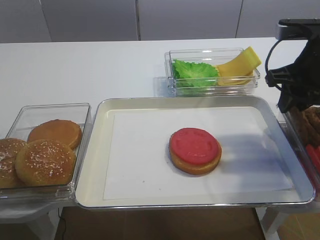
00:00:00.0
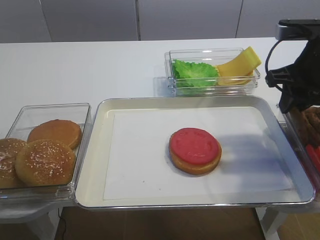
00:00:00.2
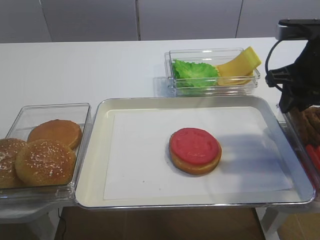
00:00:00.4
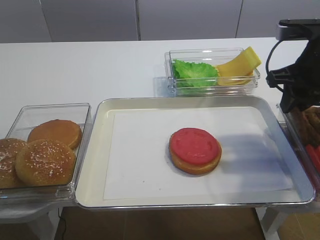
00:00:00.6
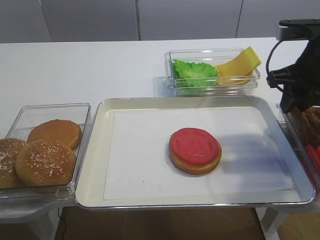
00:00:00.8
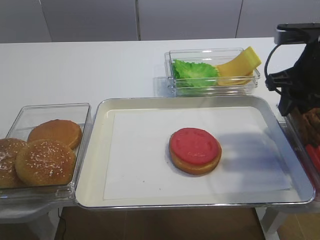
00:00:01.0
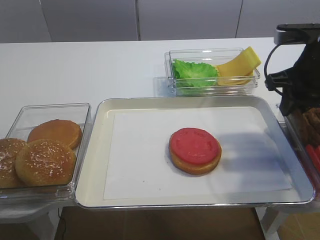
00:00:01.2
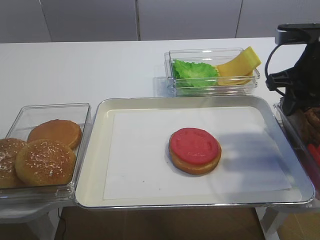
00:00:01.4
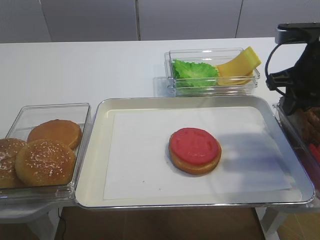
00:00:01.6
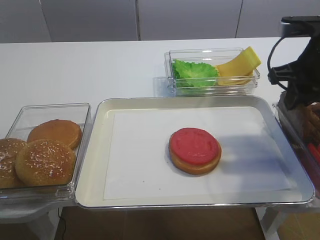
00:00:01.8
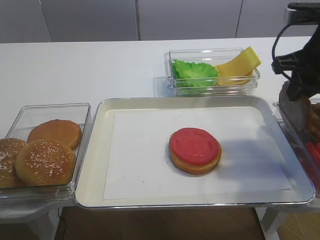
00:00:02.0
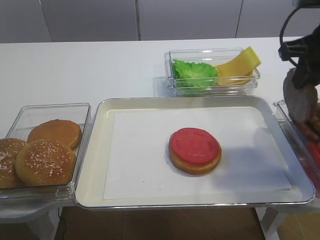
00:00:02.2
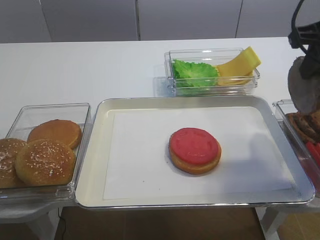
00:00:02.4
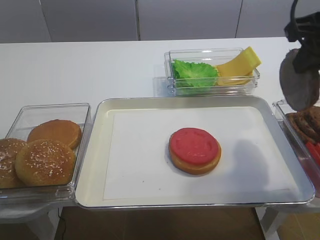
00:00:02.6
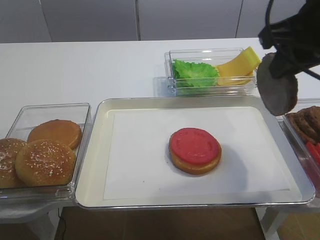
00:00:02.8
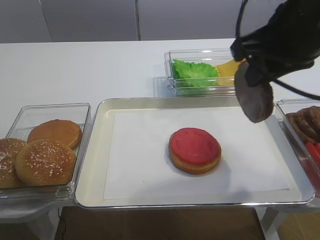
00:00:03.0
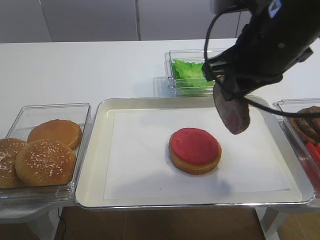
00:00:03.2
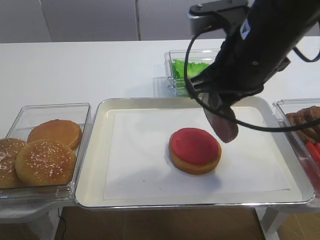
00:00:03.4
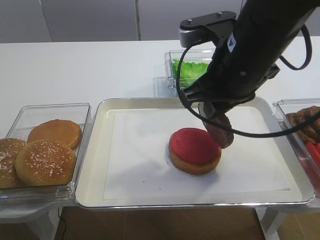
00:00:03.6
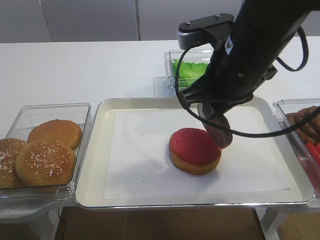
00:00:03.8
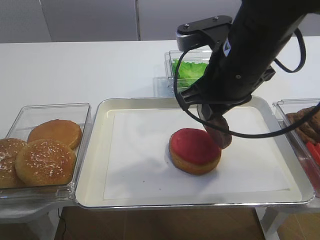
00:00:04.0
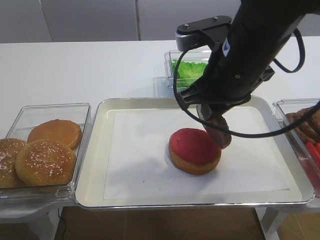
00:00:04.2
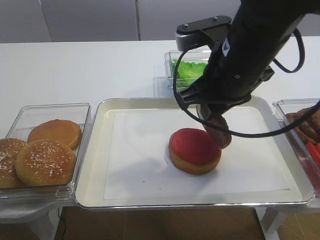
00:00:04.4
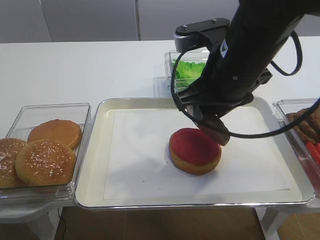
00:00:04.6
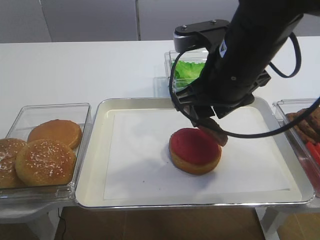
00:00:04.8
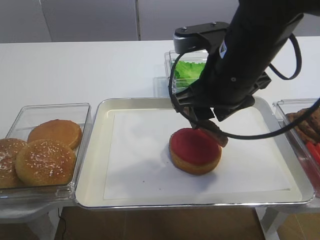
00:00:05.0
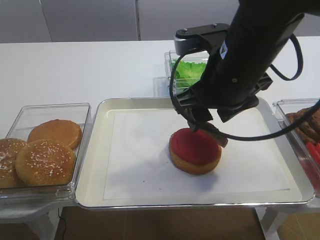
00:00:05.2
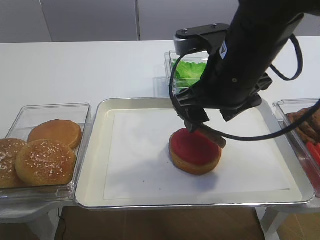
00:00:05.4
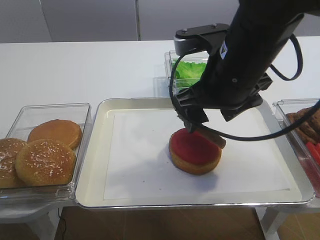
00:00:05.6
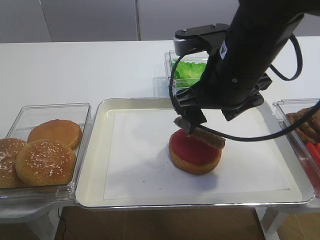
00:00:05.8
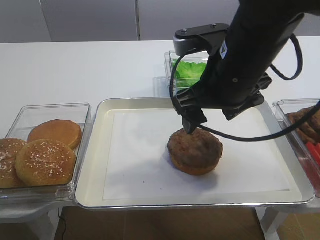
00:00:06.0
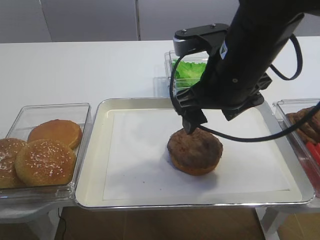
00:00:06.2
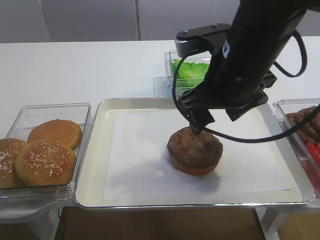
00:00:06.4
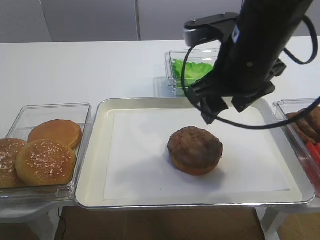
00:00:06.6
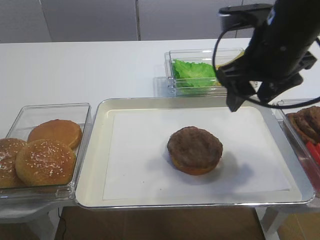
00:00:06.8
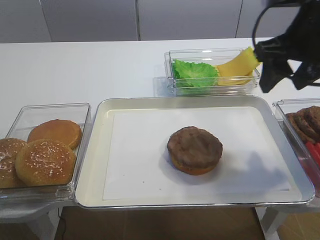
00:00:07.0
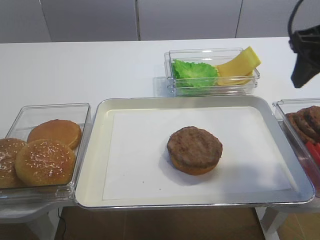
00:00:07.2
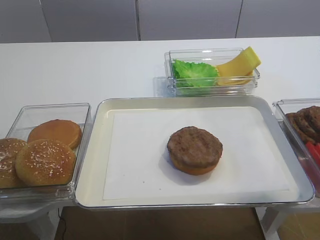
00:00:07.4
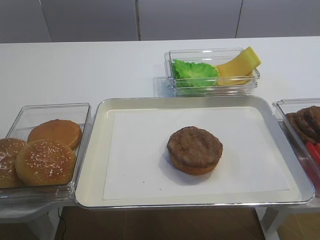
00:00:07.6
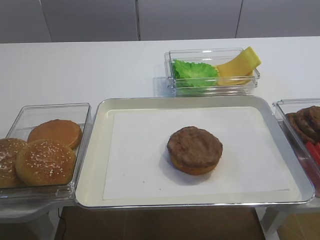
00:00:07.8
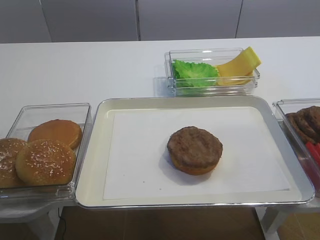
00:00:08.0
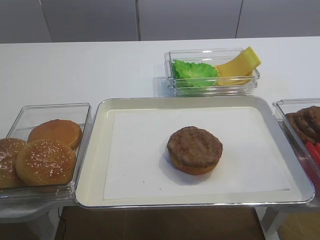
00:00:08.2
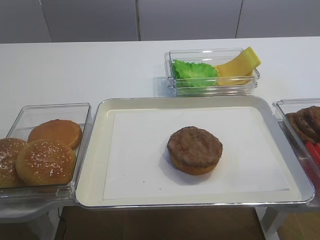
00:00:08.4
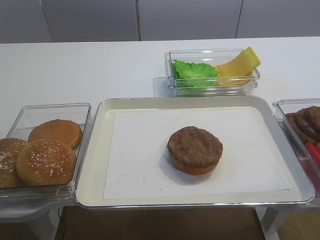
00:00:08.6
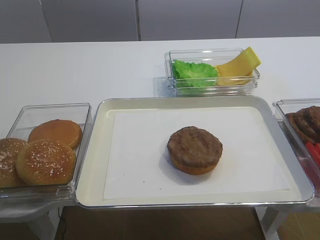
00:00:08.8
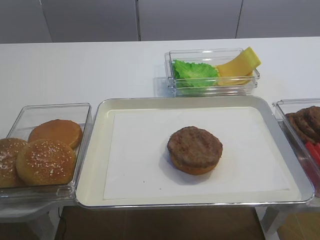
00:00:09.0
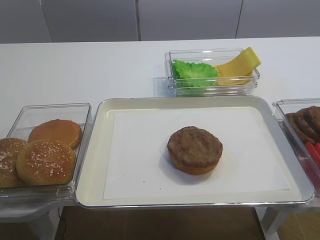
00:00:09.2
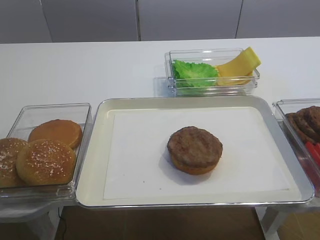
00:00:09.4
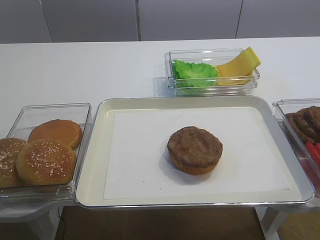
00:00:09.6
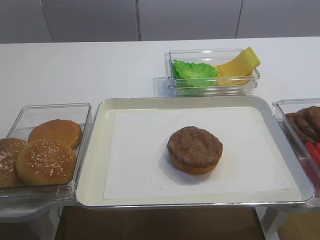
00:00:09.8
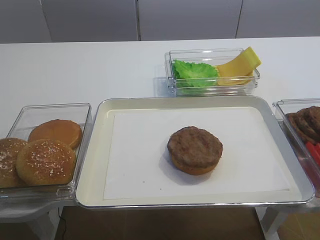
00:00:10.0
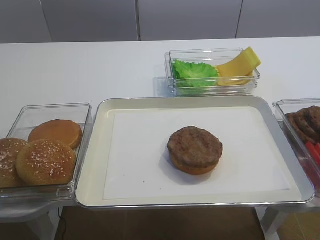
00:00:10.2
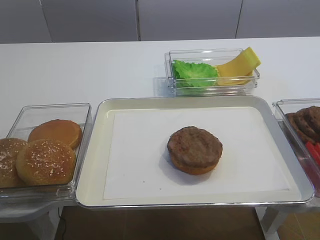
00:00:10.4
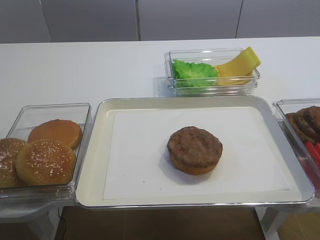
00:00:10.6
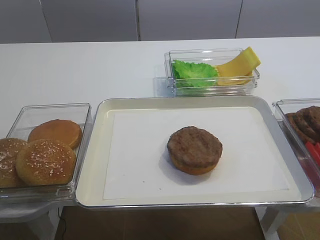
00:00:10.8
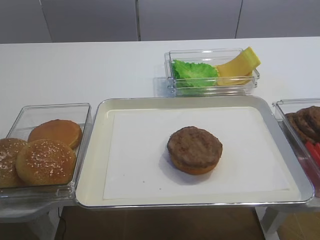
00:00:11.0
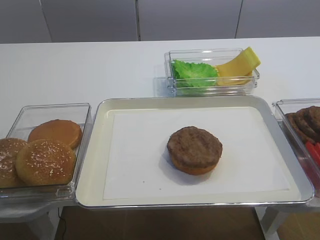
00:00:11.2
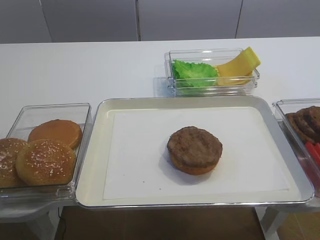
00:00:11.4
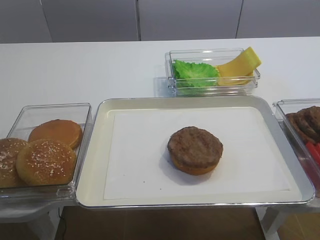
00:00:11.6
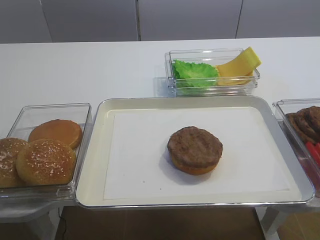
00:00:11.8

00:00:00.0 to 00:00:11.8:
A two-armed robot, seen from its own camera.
Step, 00:00:00.0 to 00:00:02.0: Pick up the cutlet with the right gripper.
Step, 00:00:02.2 to 00:00:06.0: Place the cutlet on the tomato slice with the right gripper.
00:00:00.0 to 00:00:01.4: Both grippers stay about where they are.
00:00:01.4 to 00:00:03.0: The right gripper shifts roughly 15 cm to the left, upward and backward.
00:00:03.0 to 00:00:04.4: The right gripper is displaced to the left and downward by approximately 10 cm.
00:00:04.4 to 00:00:06.0: The right gripper opens up.
00:00:06.0 to 00:00:07.4: The right gripper is displaced to the right and upward by roughly 15 cm, and closes its fingers.
00:00:07.4 to 00:00:08.8: The right gripper moves backward, approximately 25 cm.

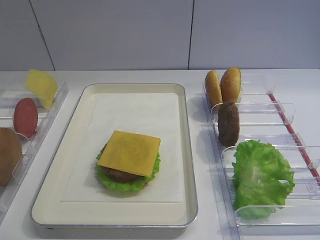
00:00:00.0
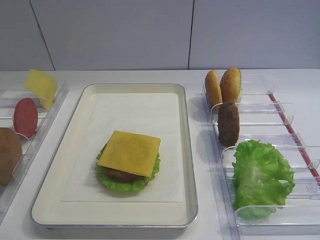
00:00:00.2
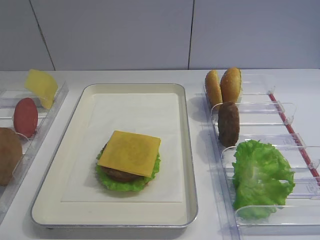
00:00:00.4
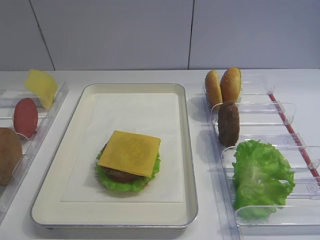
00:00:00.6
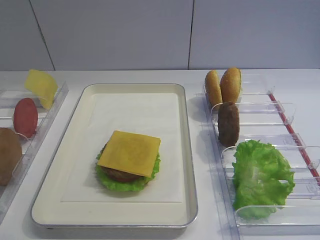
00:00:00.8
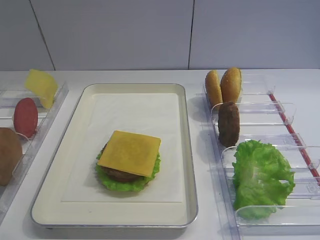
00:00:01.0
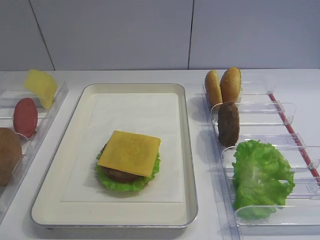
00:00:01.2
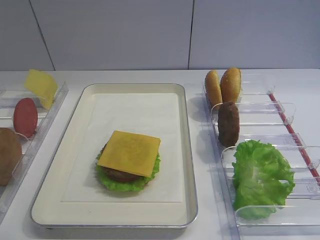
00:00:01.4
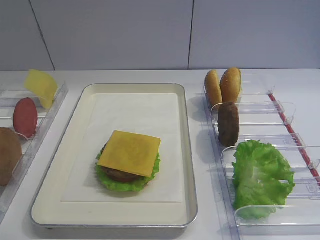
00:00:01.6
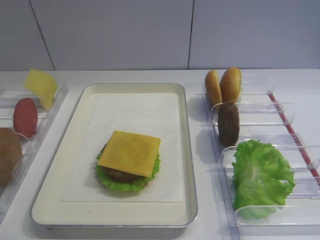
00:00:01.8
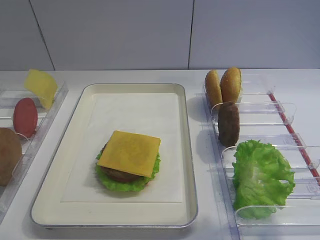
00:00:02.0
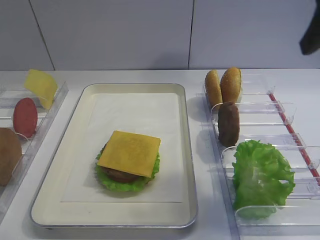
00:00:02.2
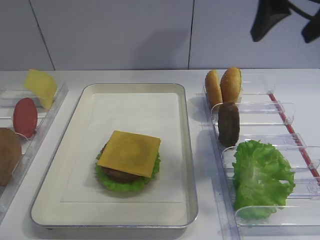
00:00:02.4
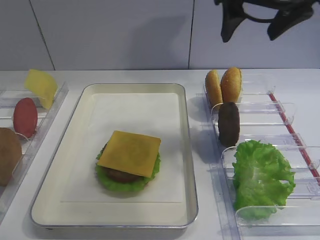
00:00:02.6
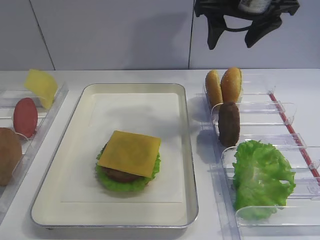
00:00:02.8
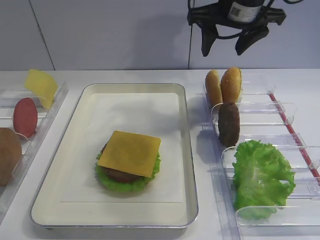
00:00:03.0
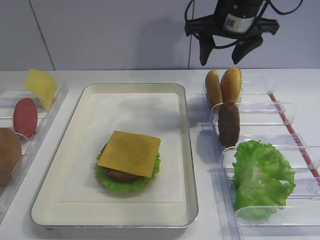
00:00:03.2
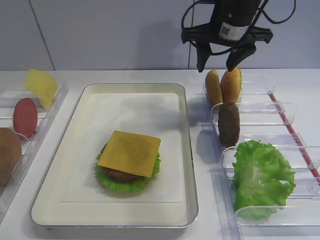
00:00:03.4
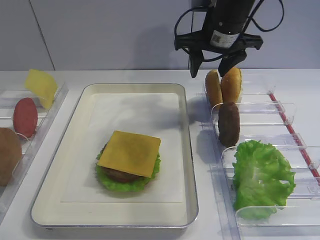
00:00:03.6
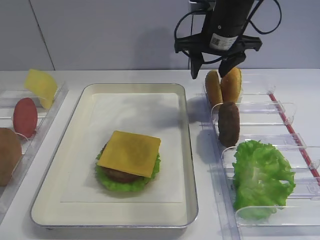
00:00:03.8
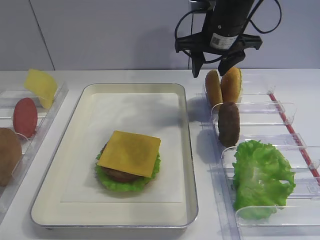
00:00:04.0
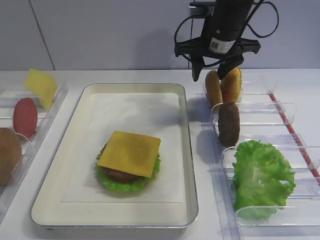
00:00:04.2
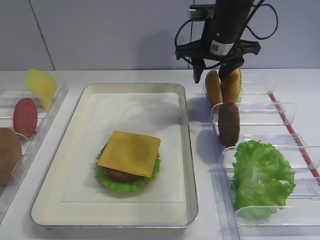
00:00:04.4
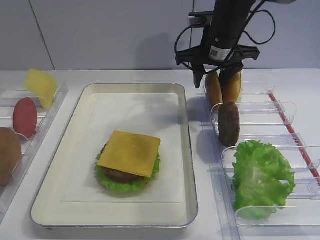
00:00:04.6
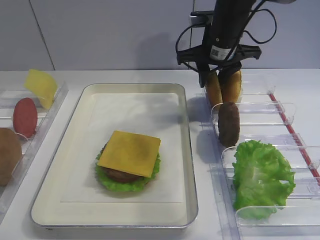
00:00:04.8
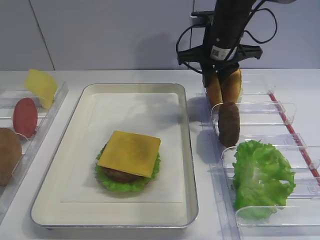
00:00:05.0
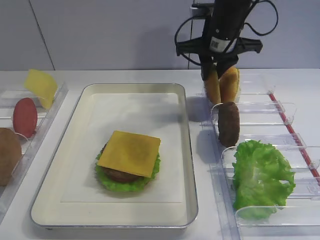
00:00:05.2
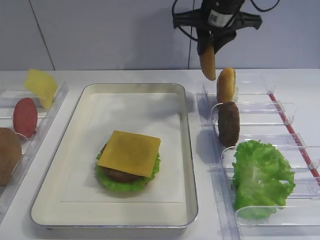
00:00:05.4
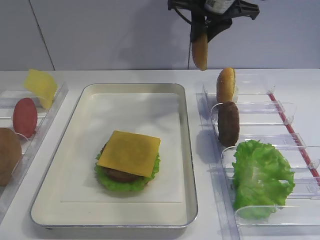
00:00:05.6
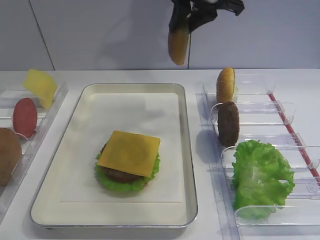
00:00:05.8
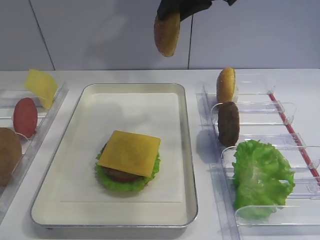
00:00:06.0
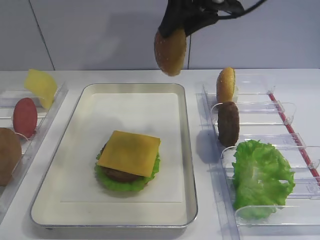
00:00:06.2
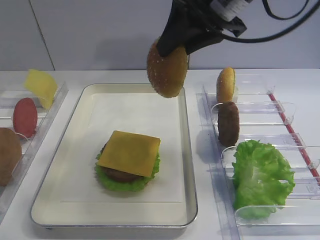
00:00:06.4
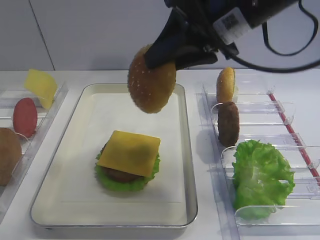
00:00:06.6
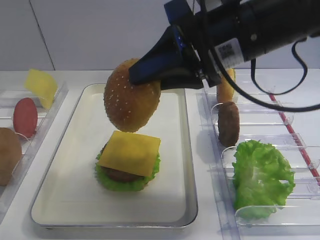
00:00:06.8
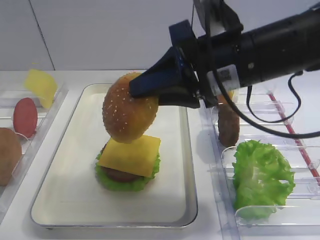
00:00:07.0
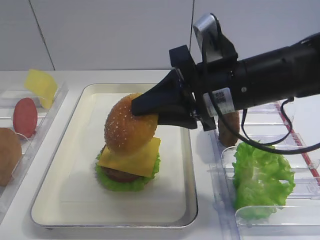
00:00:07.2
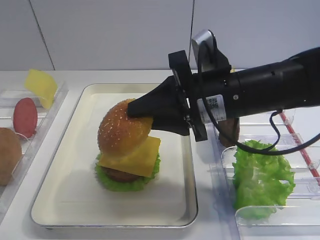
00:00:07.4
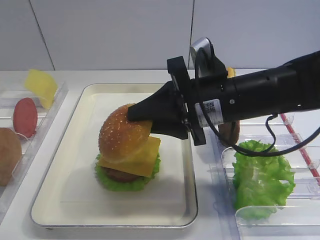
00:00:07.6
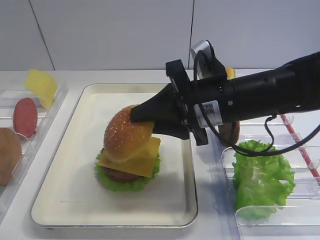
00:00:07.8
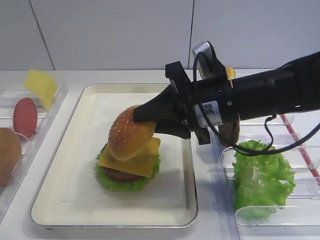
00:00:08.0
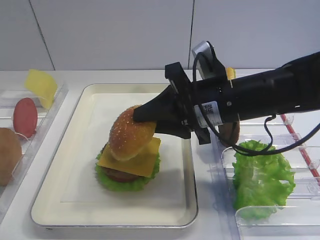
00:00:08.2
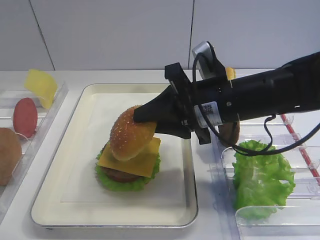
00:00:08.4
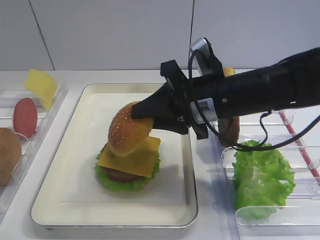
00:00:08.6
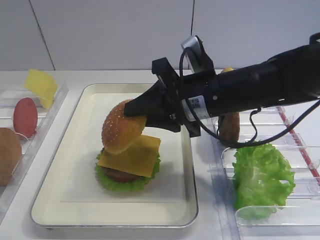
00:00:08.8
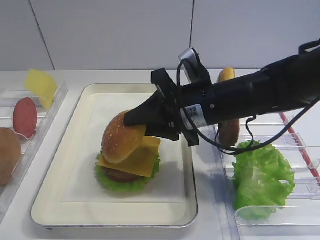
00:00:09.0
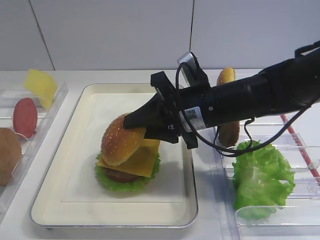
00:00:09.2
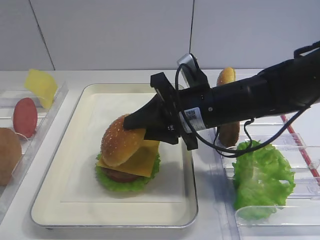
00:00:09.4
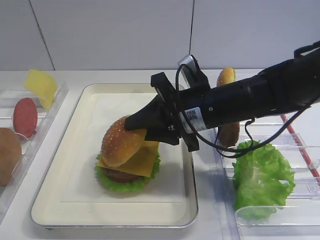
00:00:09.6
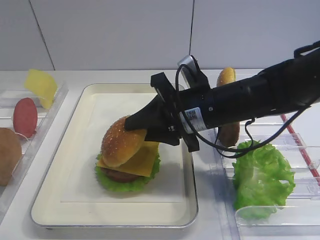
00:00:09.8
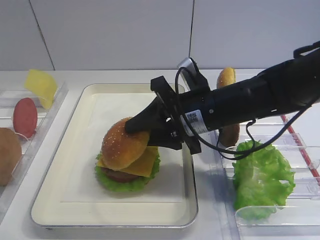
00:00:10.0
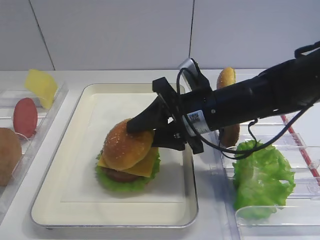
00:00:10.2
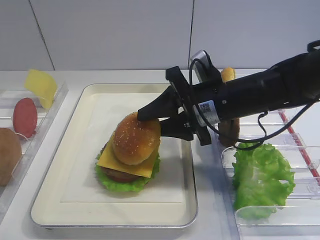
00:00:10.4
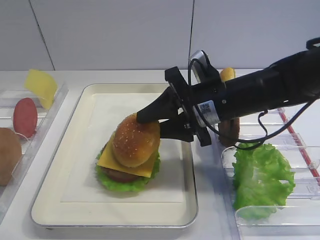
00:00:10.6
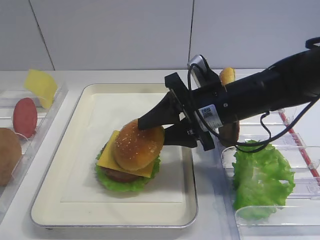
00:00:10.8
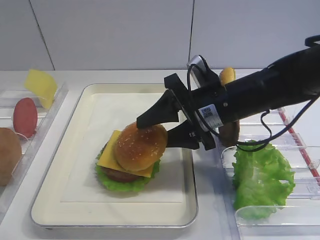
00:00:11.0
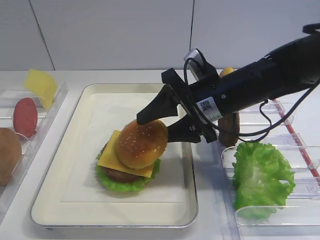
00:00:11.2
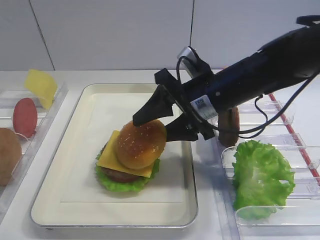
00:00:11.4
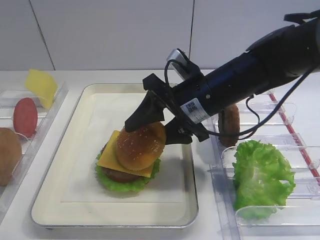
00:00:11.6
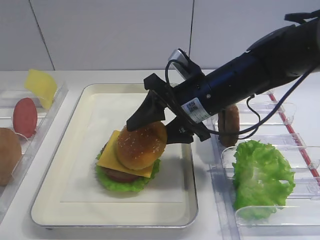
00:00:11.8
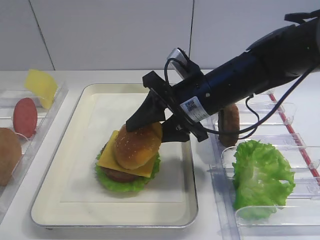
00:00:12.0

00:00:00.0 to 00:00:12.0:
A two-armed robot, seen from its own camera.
Step, 00:00:00.0 to 00:00:05.6: Pick up the hamburger lid with the right gripper.
00:00:01.6 to 00:00:03.0: The right gripper goes some 35 cm forward.
00:00:03.0 to 00:00:04.4: The right gripper goes approximately 5 cm downward.
00:00:04.4 to 00:00:06.0: The right gripper goes roughly 10 cm upward.
00:00:06.0 to 00:00:07.6: The right gripper moves downward and backward, approximately 20 cm.
00:00:07.6 to 00:00:12.0: There are only small adjustments of the grippers.
